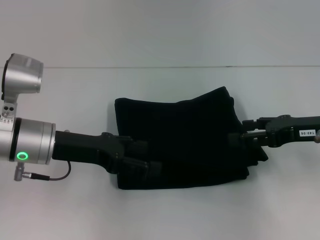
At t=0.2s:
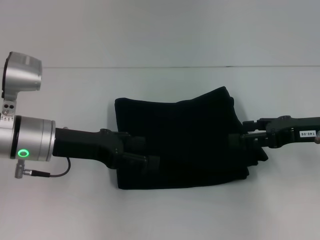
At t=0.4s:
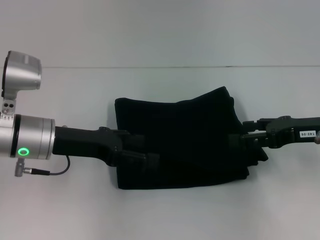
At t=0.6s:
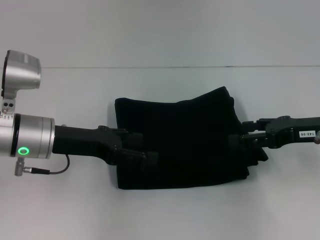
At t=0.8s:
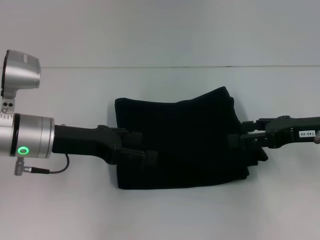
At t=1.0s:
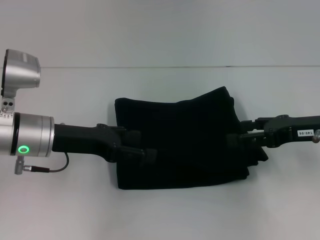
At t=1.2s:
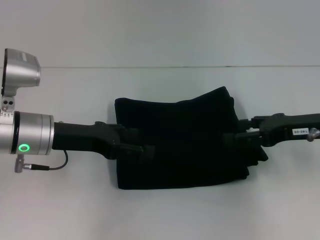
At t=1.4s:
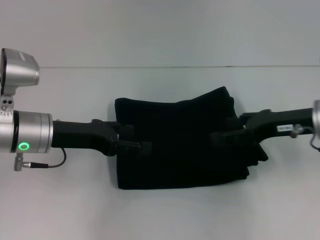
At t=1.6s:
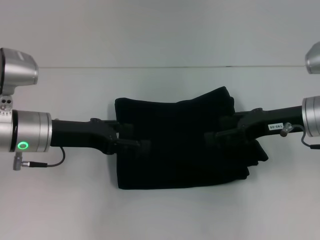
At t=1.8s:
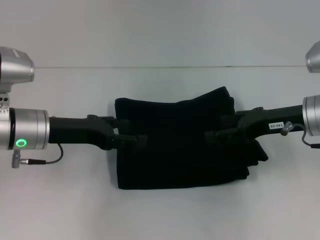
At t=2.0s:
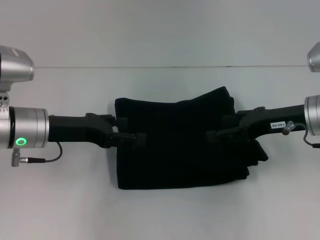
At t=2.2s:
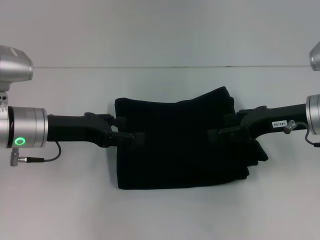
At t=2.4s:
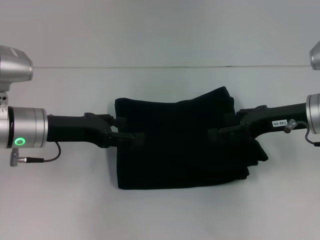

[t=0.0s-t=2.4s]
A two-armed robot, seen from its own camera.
t=0.0s to t=2.4s: The grippers stay close to where they were, moving slightly.
